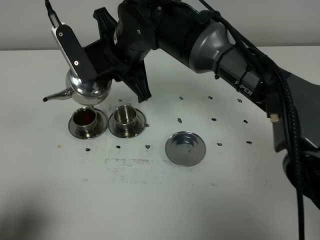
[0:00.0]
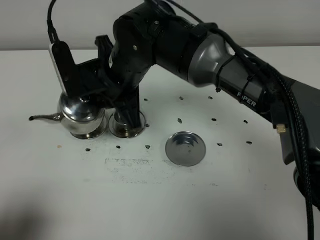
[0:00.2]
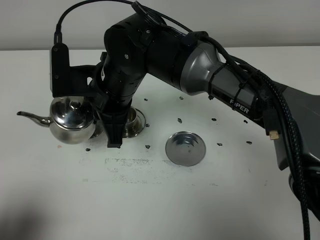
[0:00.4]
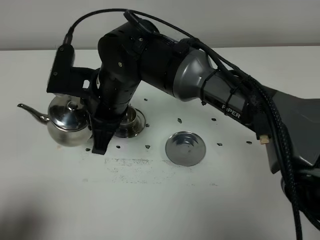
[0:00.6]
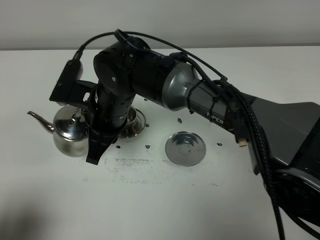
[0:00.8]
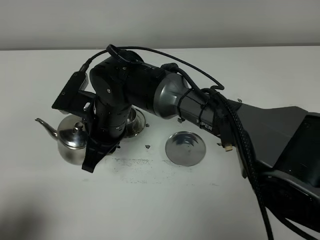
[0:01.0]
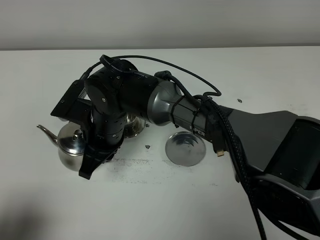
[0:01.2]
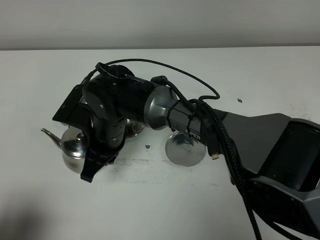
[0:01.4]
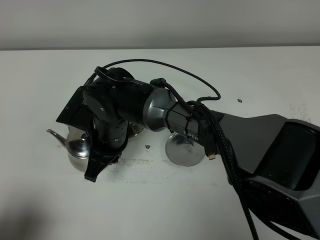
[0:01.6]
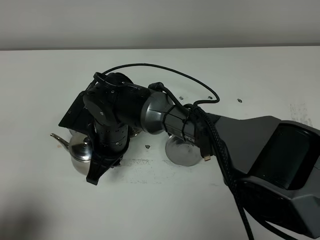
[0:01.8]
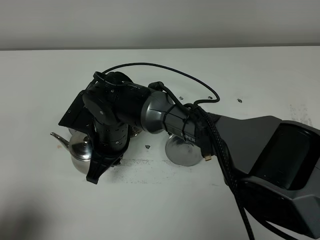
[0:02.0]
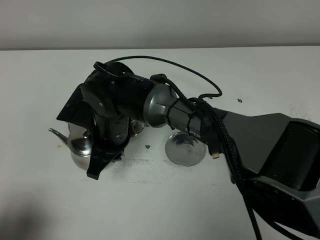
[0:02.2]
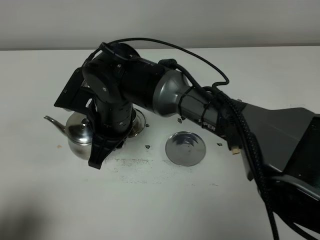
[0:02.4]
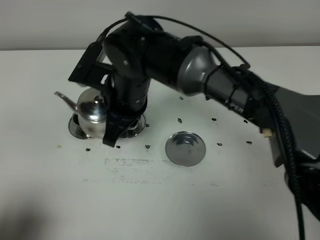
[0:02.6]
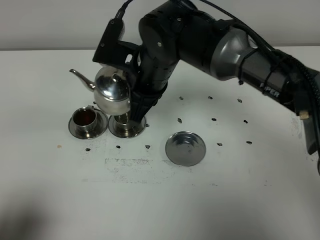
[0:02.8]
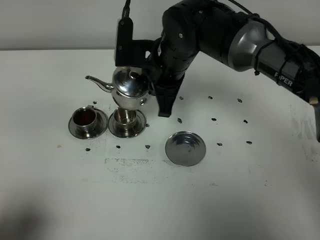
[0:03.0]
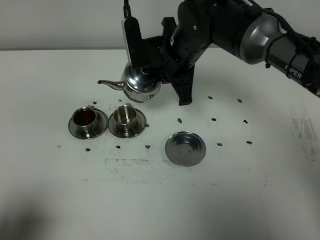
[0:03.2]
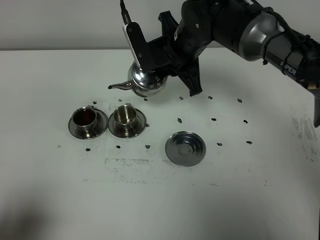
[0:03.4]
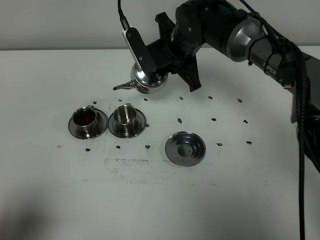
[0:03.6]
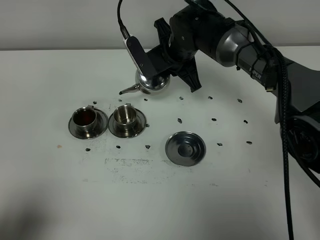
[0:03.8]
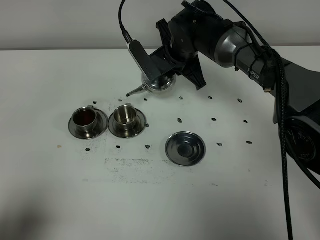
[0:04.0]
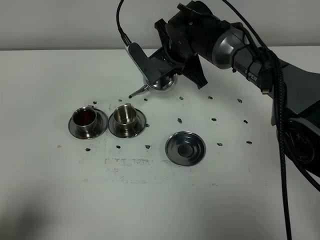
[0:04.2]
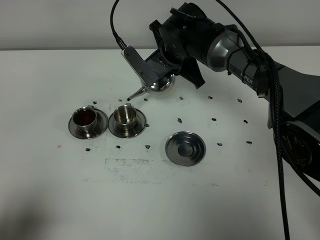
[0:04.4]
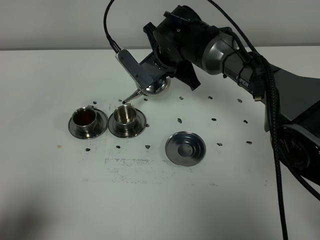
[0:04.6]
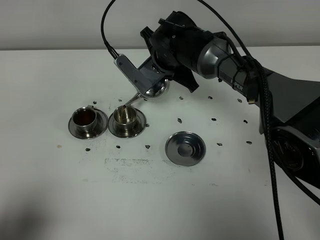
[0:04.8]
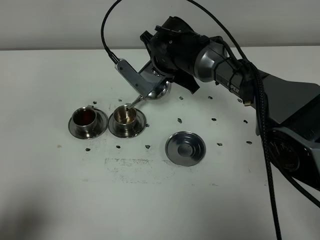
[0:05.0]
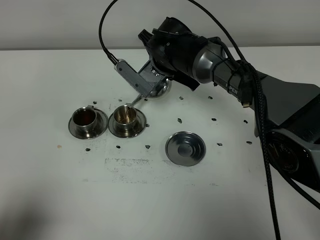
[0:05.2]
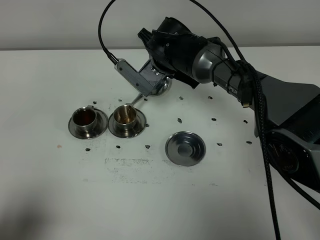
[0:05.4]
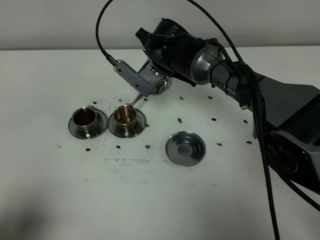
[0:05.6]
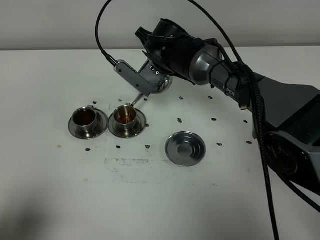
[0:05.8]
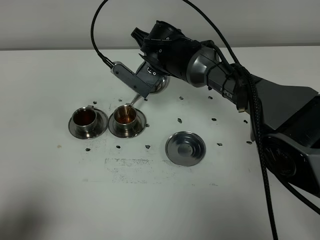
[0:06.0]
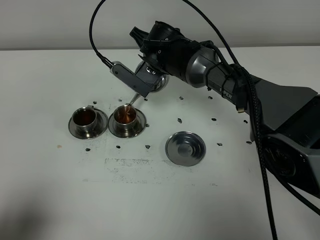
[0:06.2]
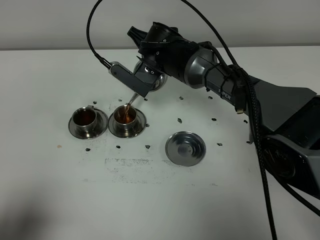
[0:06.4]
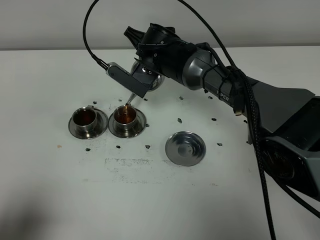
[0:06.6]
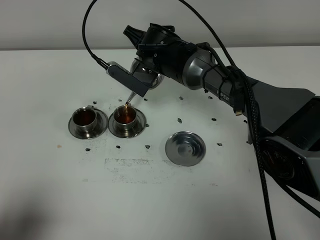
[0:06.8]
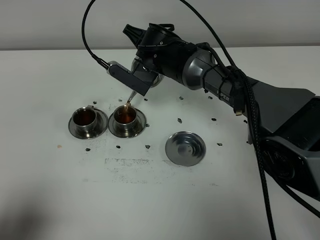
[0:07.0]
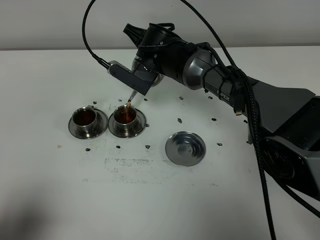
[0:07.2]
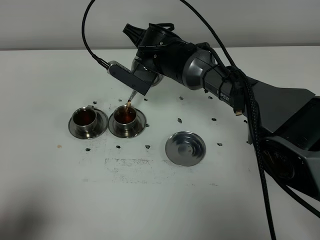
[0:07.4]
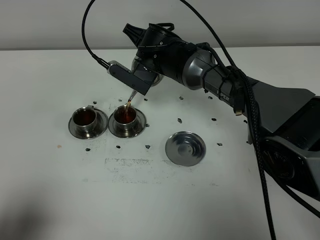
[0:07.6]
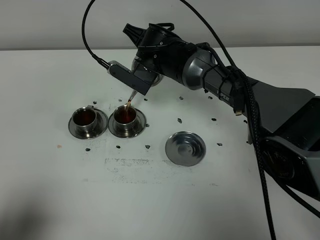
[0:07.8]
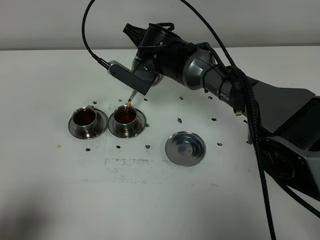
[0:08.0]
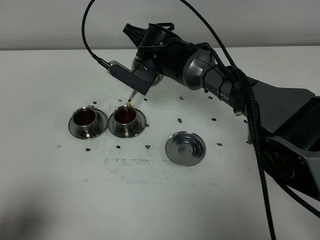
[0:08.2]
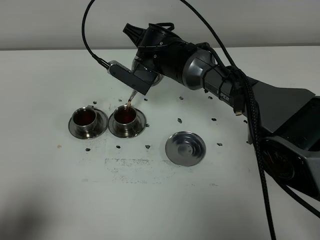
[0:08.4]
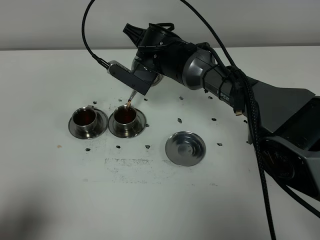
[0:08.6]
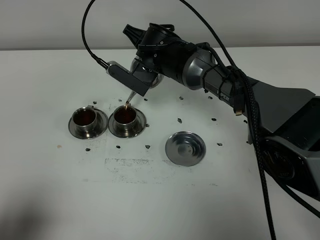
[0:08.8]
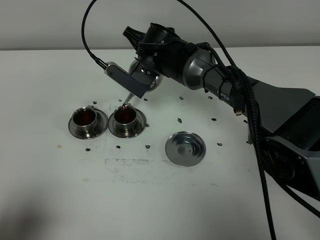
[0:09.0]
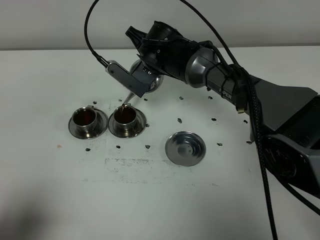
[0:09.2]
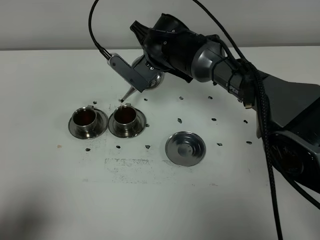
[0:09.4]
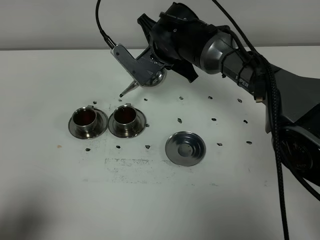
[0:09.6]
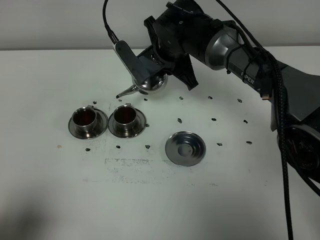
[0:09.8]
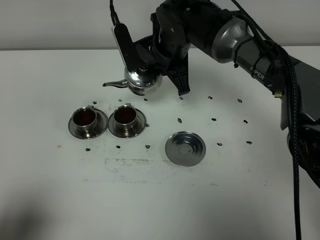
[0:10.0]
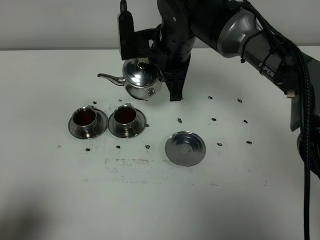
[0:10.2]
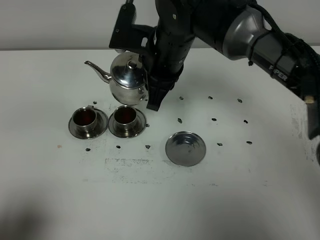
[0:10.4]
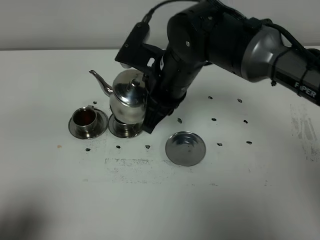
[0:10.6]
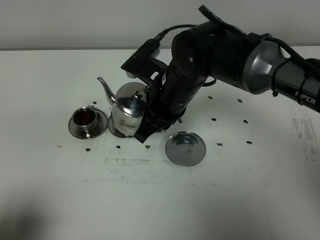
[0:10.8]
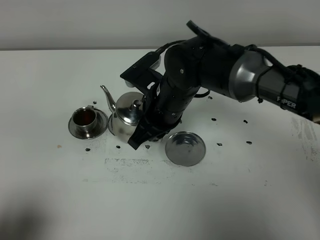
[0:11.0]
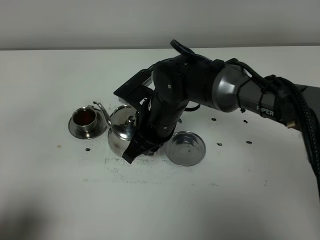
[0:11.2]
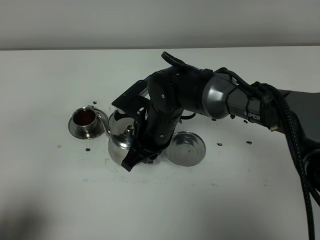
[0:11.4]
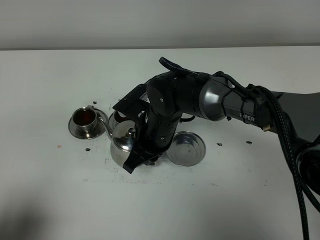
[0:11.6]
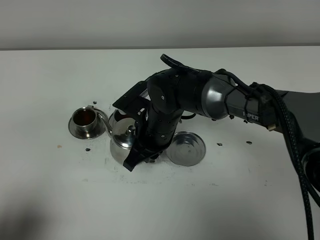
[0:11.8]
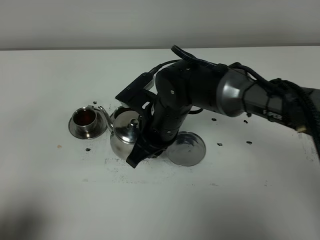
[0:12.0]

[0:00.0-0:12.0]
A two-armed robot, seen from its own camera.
Task of the whole recording: grasp the stainless steel teapot and pour the tea into the two stainless steel teacups one by one, put the stainless steel teapot back in its original place.
Step, 0:00.0 to 0:09.6: Pour tea into the teacup with the right gripper.
0:00.0 to 0:01.6: The right gripper is displaced downward and backward by about 15 cm.
0:01.6 to 0:03.0: The right gripper is displaced to the right, upward and forward by approximately 15 cm.
0:03.0 to 0:04.4: The right gripper is displaced forward by roughly 10 cm.
0:04.4 to 0:06.0: The grippers move only a little.
0:06.0 to 0:09.0: There are only small adjustments of the grippers.
0:09.0 to 0:10.4: The right gripper is displaced backward and upward by approximately 10 cm.
0:10.4 to 0:12.0: The right gripper is displaced downward and backward by roughly 10 cm.

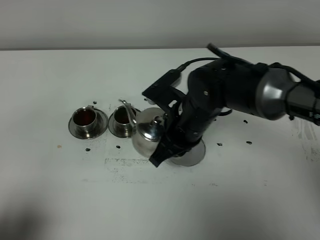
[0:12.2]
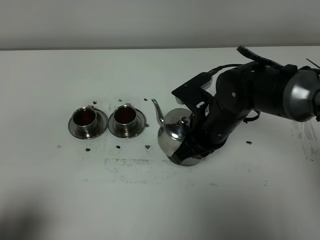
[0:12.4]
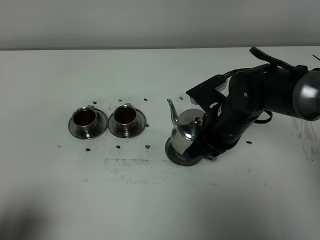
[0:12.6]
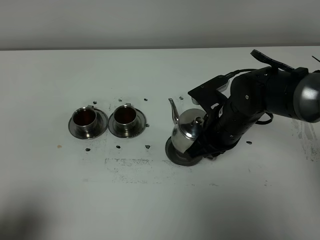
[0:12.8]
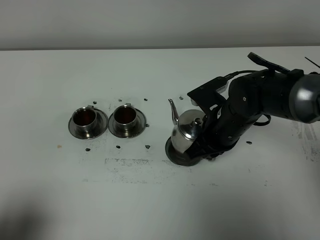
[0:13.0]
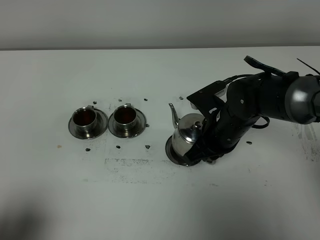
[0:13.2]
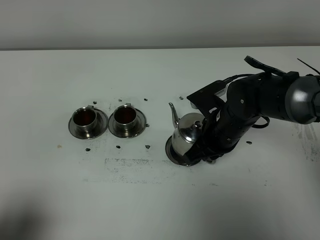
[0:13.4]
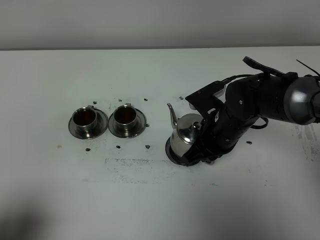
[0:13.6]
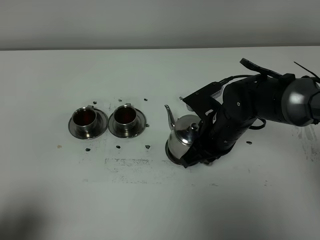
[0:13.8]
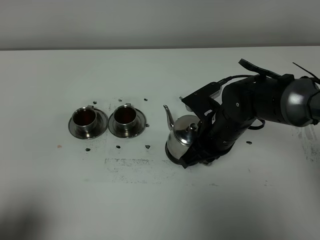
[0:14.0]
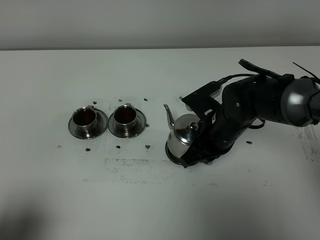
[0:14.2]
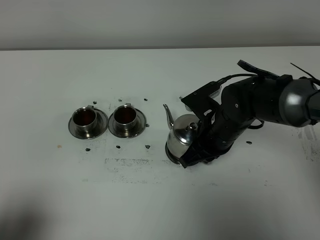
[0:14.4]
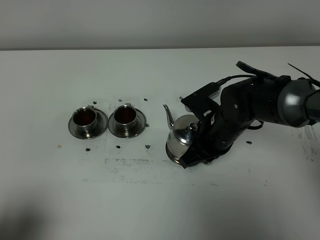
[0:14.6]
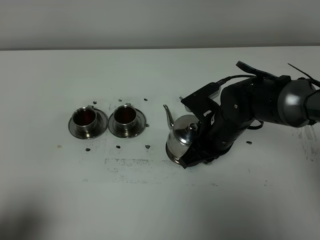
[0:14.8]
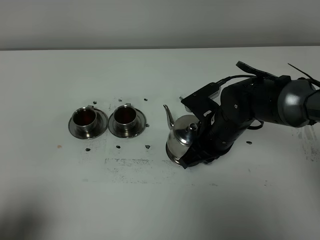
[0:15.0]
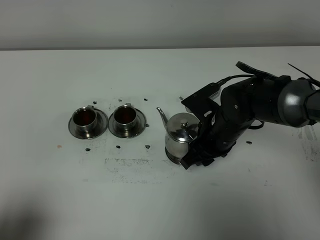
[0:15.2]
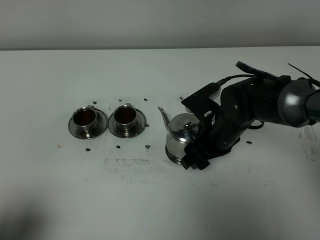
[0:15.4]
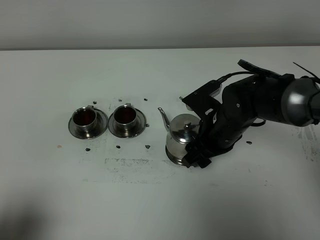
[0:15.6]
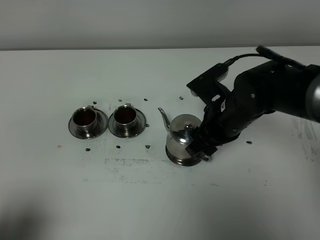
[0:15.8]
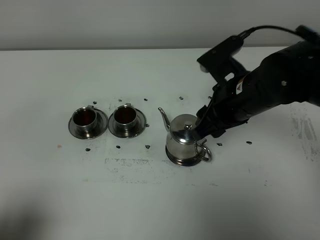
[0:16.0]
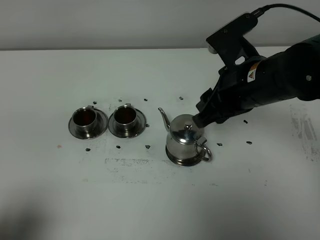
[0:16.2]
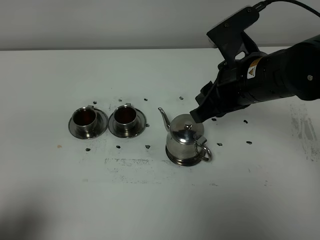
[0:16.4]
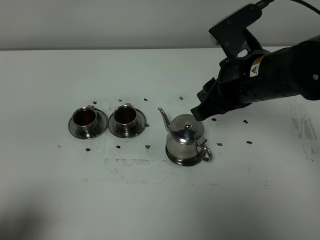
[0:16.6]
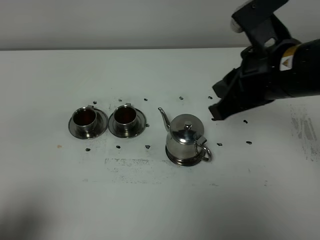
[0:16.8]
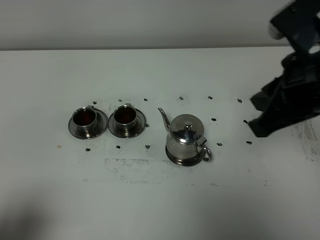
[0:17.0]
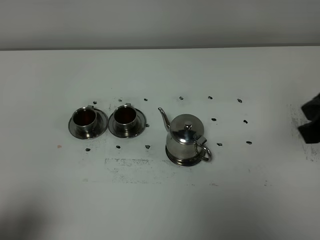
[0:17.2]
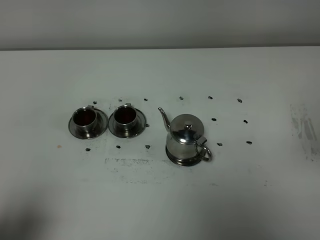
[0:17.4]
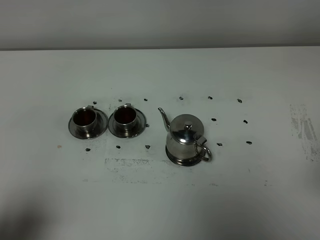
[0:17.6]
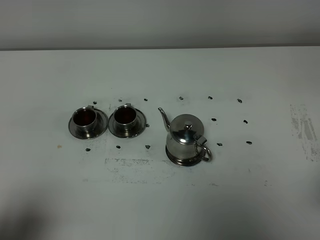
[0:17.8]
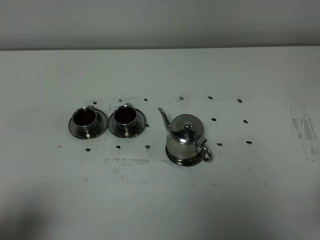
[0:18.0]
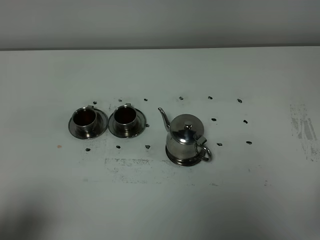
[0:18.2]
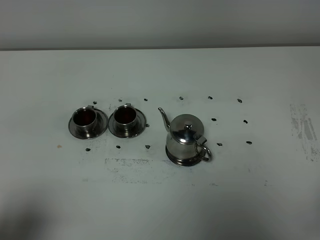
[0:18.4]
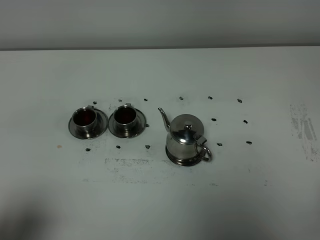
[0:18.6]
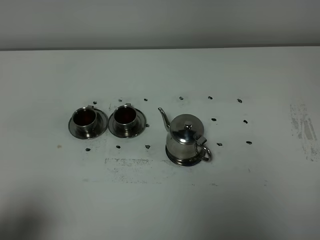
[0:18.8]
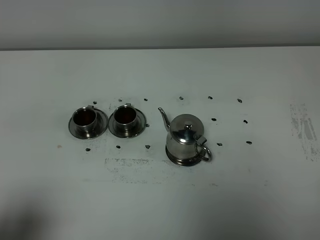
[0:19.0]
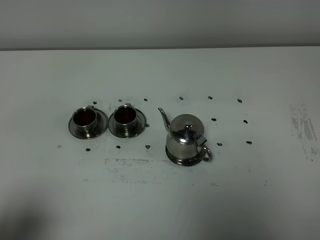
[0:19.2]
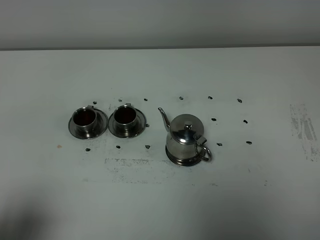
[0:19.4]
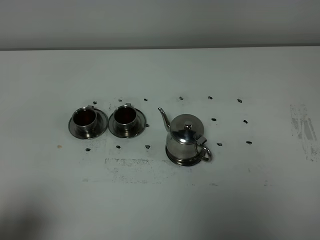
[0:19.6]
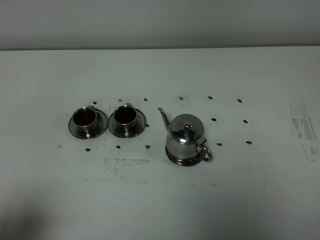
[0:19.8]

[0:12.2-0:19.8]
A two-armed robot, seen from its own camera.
Task of the whole recording: grasp the stainless steel teapot and pour the tea into the two stainless steel teacups one by one, put the stainless steel teapot back in its original place.
0:12.2 to 0:13.8: The right gripper heads to the right, covering roughly 5 cm.
0:13.8 to 0:15.2: The right gripper opens up.
0:15.2 to 0:16.8: The right gripper travels upward by about 20 cm, and closes.
0:16.8 to 0:18.2: The right gripper heads backward and to the right, covering roughly 25 cm.

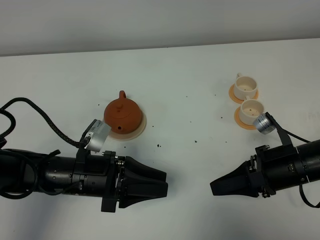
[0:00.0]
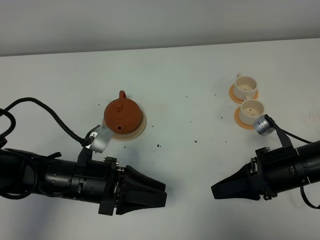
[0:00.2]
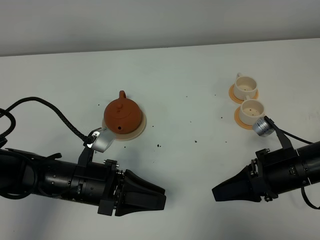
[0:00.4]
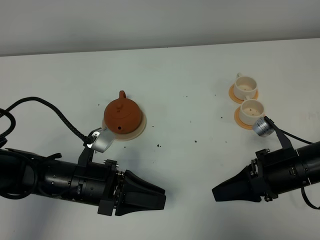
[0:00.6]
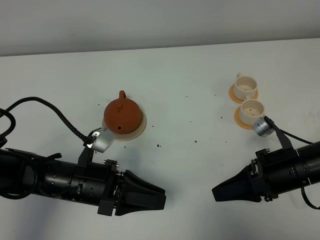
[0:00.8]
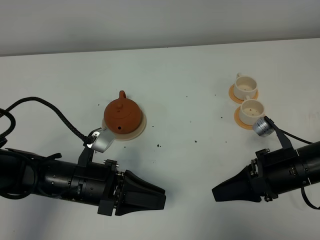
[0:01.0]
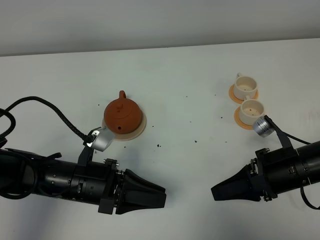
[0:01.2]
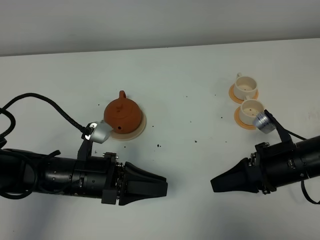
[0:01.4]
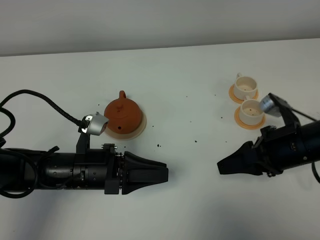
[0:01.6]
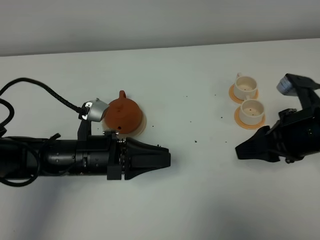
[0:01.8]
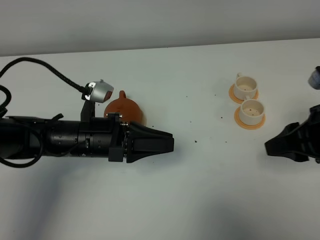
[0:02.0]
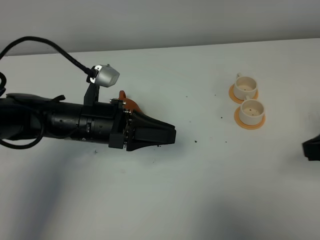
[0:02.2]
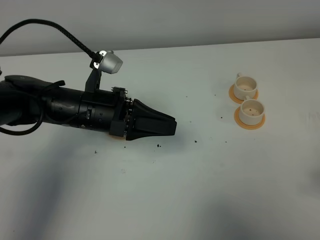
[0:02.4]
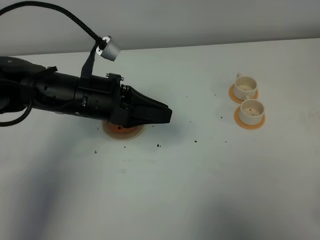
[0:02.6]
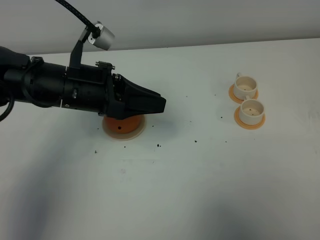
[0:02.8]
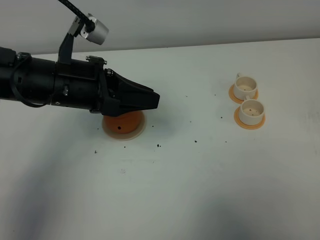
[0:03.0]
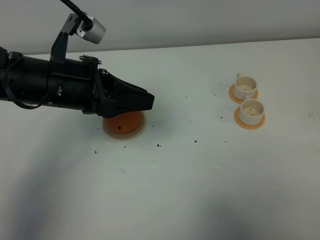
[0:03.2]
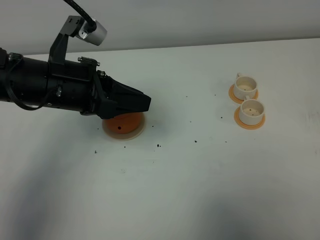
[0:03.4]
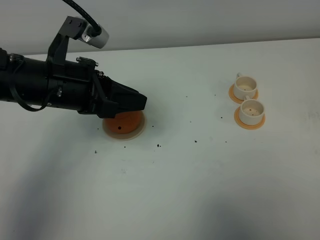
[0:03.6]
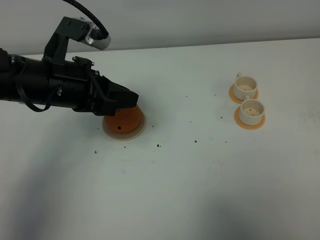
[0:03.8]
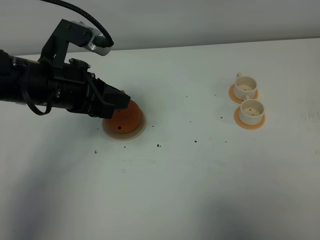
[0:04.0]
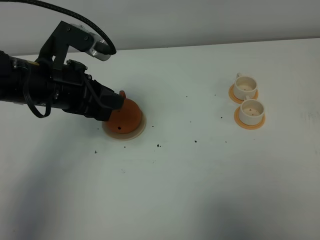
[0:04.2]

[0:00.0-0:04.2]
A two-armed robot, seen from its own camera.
Task of the whole recording: grasp the brown teapot and pour the tea into the two white teacups one by one, put the brown teapot back in its original place.
0:00.0 to 0:01.4: The grippers move only a little.
0:01.4 to 0:02.8: The left gripper is displaced upward and forward by some 15 cm, while the right gripper shifts roughly 25 cm backward, upward and to the right.
